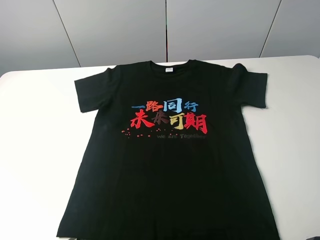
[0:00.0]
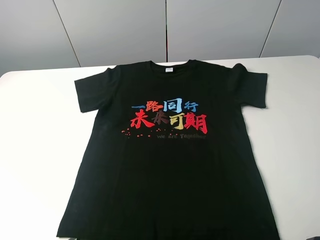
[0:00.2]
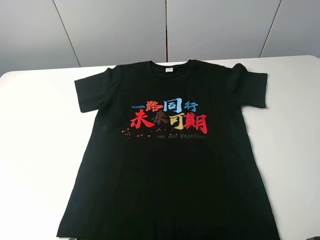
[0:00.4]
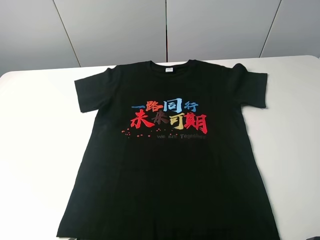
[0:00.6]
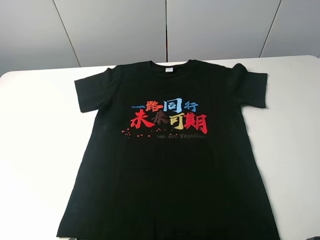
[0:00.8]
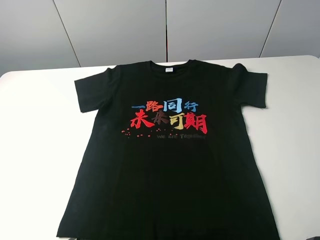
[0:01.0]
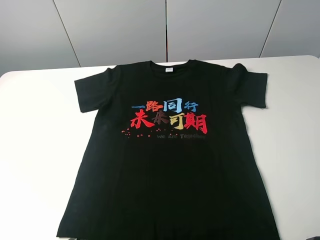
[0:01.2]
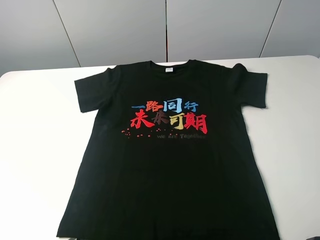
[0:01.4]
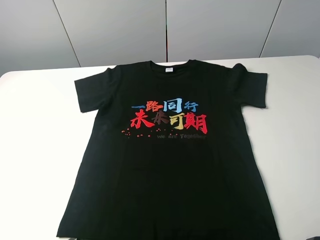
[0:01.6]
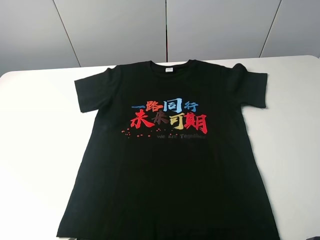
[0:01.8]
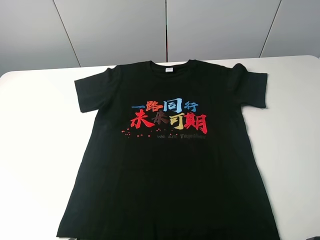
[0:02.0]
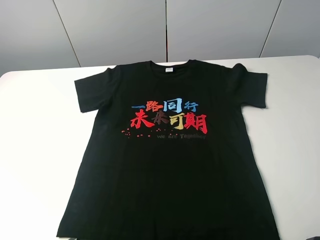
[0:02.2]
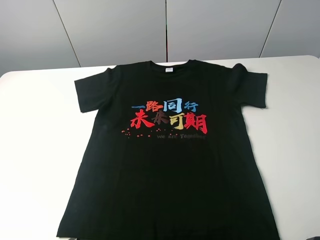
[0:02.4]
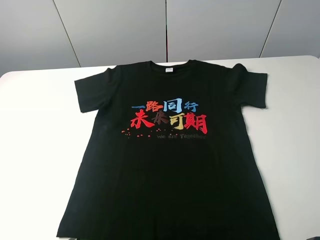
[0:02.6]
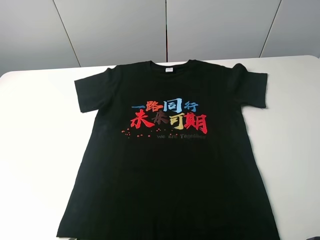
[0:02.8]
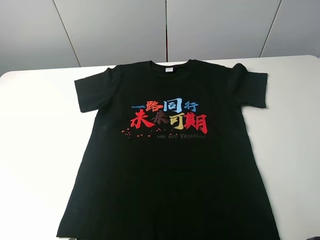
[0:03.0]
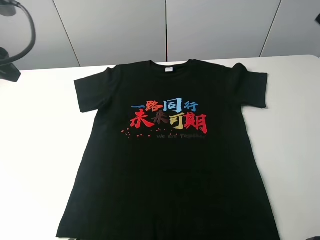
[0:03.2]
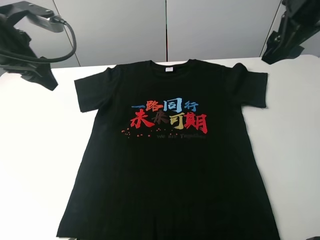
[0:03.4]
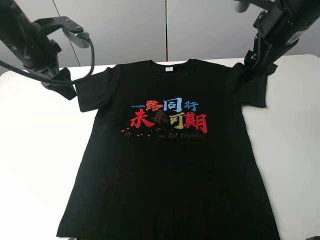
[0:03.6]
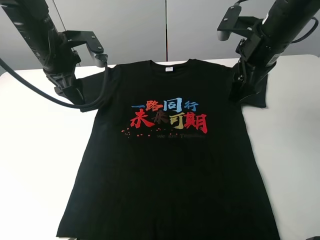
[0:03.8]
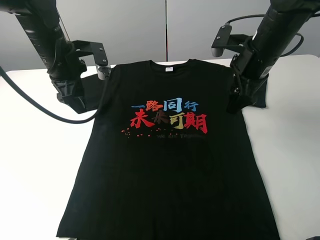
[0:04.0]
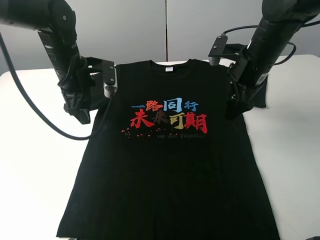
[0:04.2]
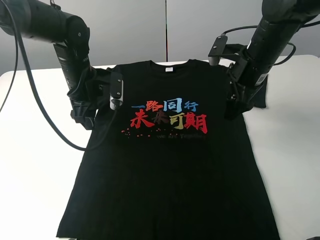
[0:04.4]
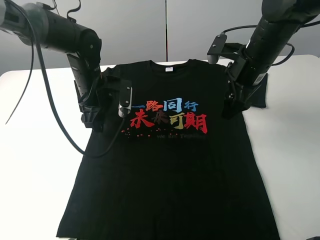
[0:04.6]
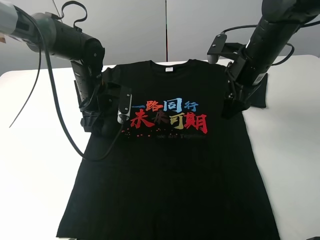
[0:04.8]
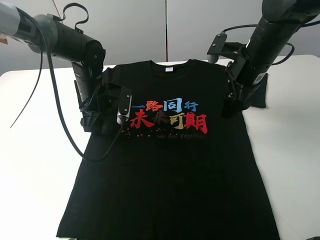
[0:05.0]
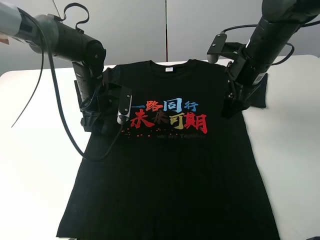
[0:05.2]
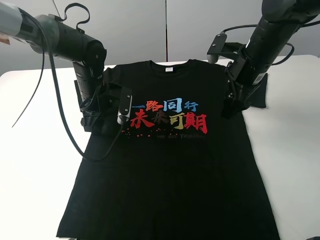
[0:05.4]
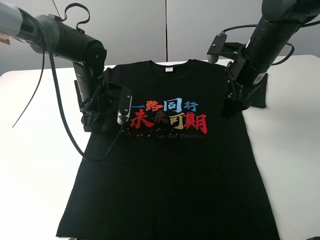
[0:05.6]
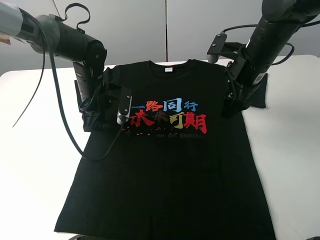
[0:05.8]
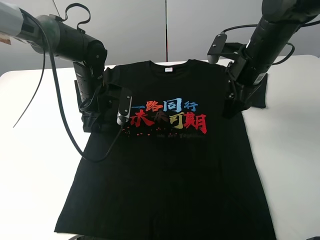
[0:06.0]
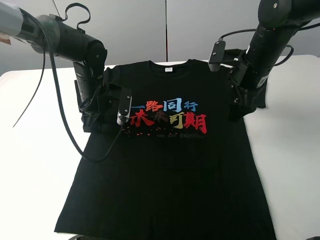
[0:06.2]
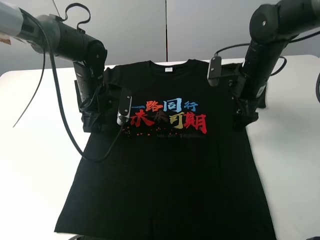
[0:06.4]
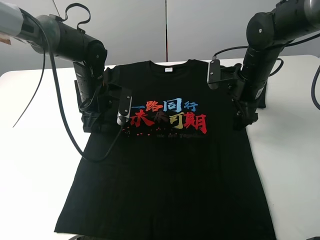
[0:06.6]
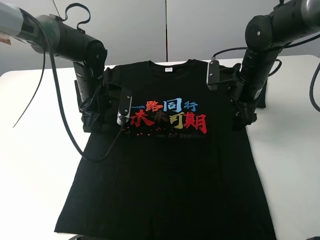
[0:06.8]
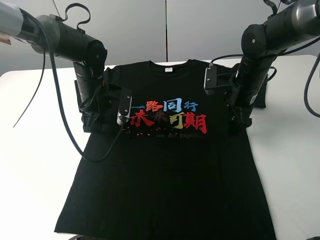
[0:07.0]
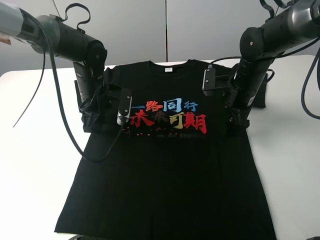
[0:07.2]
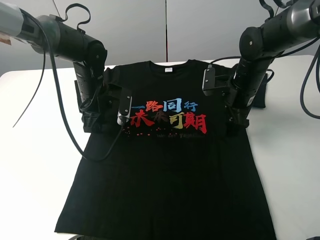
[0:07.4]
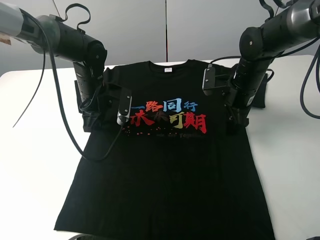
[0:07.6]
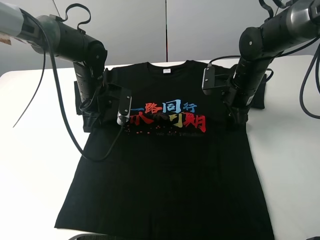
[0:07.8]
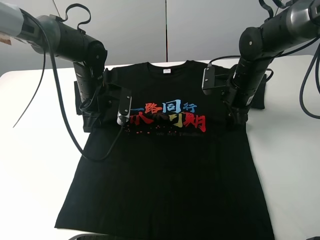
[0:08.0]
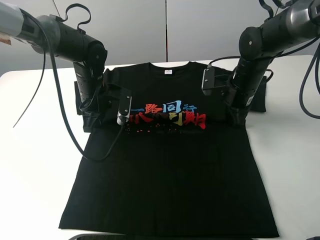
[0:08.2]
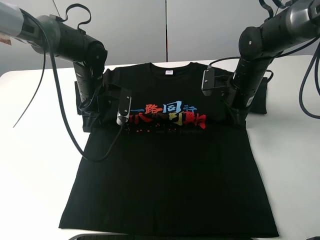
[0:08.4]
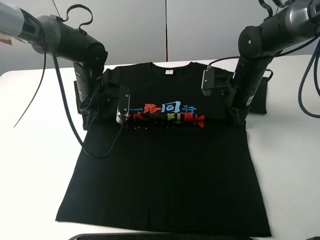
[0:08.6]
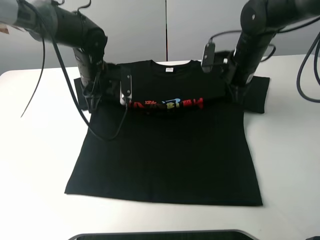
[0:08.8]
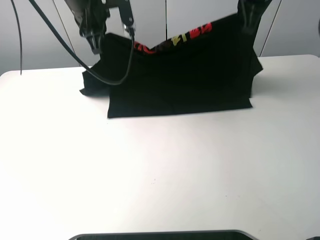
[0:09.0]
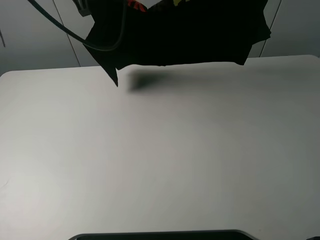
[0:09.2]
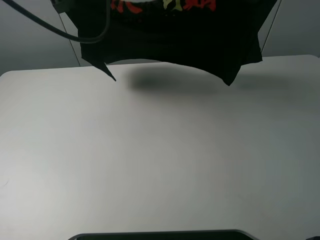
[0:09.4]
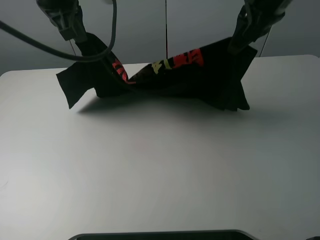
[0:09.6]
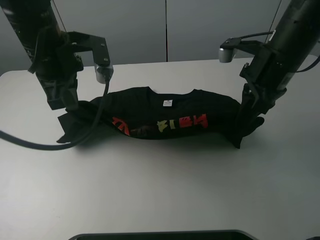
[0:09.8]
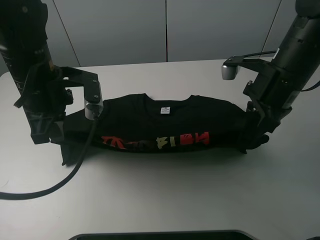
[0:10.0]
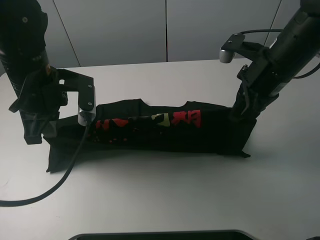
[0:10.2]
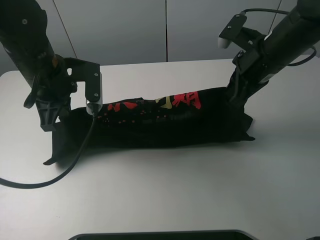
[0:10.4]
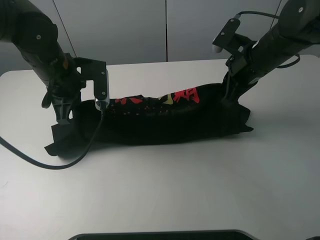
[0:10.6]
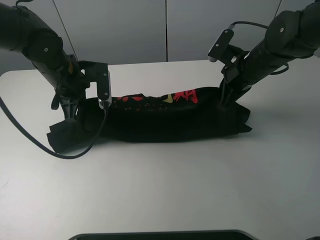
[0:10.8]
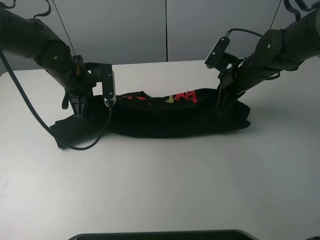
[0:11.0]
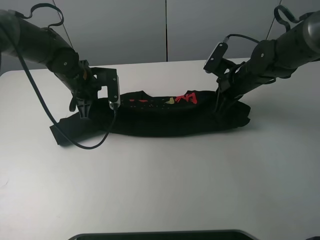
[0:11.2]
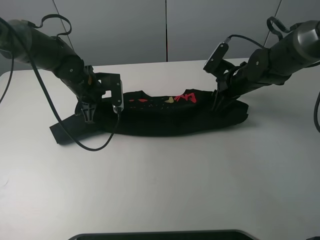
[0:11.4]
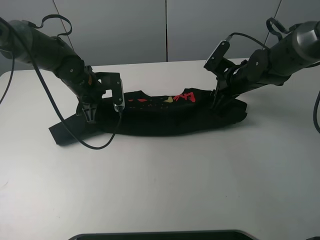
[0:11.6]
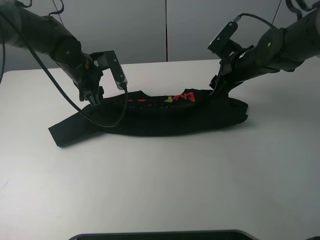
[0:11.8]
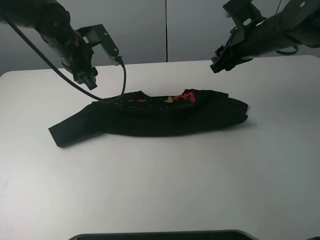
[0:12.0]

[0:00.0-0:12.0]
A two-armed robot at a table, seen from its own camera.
Task of the whole recording: fold the clothes on the table.
Step, 0:00.0 to 0:07.8: Lift the black T-shirt with the left gripper.
Step, 0:08.2 to 0:11.8: Fold the black T-shirt downward with the left gripper.
0:00.0 to 0:01.6: Neither gripper changes place.
0:03.0 to 0:04.4: The left gripper is displaced downward, to the right and forward by approximately 25 cm. Meanwhile the right gripper is displaced downward, to the left and forward by some 25 cm.
0:04.4 to 0:06.0: There are only small adjustments of the grippers.
0:06.0 to 0:07.6: The right gripper is displaced downward by approximately 10 cm; the left gripper closes its fingers.
0:07.6 to 0:09.0: Both grippers travel together upward, approximately 20 cm. The right gripper closes up.
0:09.0 to 0:10.4: The left gripper moves backward, downward and to the left, about 15 cm. The right gripper goes approximately 15 cm downward and backward.
0:10.4 to 0:12.0: The left gripper goes roughly 10 cm forward, moves approximately 10 cm downward and comes back, and opens up. Meanwhile the right gripper goes downward and returns, some 10 cm each way, and opens.

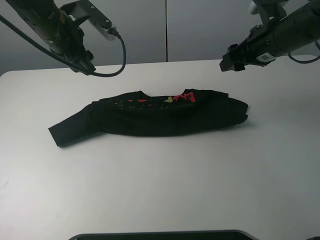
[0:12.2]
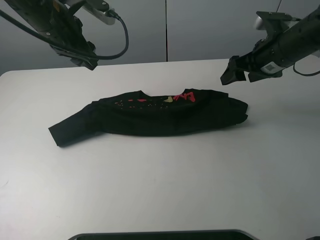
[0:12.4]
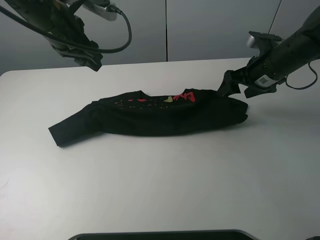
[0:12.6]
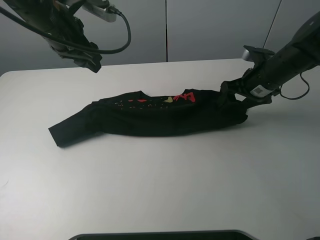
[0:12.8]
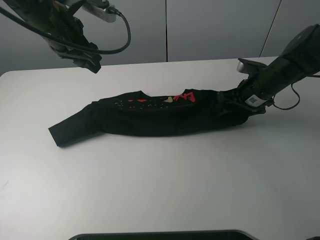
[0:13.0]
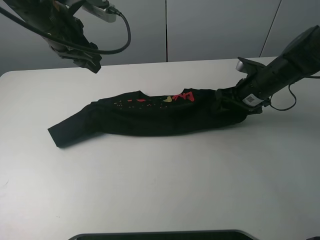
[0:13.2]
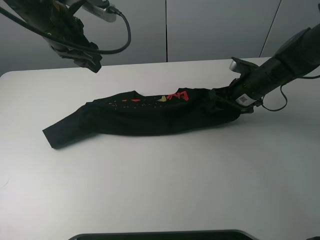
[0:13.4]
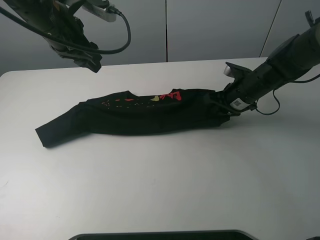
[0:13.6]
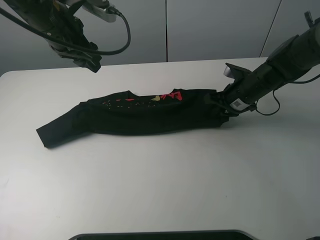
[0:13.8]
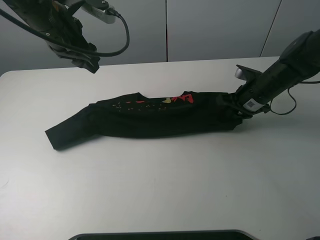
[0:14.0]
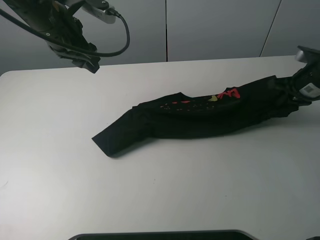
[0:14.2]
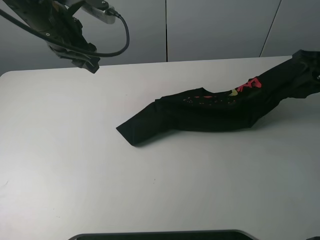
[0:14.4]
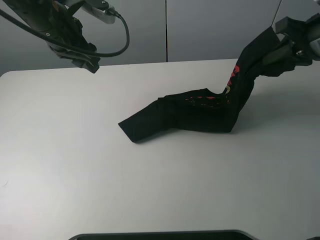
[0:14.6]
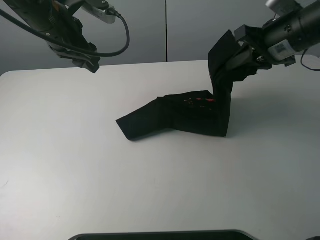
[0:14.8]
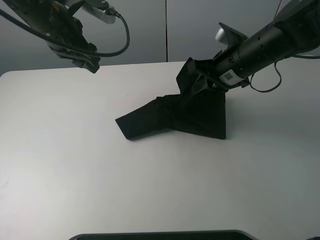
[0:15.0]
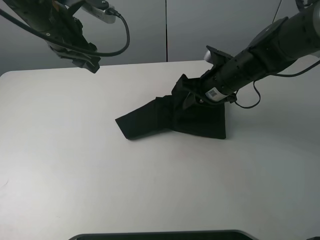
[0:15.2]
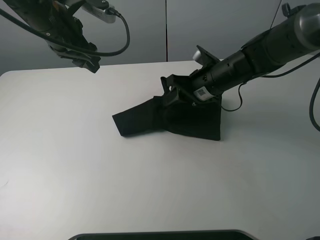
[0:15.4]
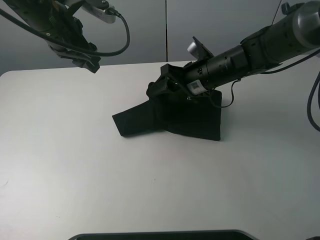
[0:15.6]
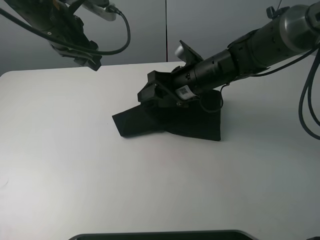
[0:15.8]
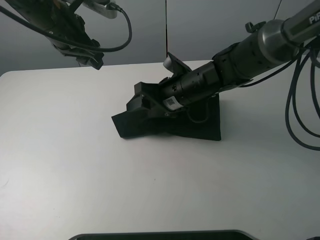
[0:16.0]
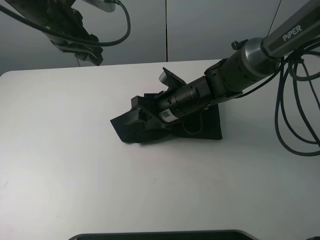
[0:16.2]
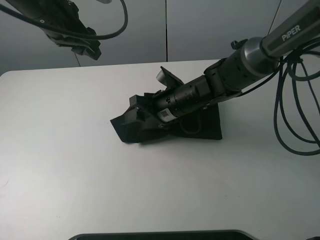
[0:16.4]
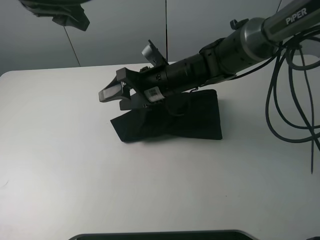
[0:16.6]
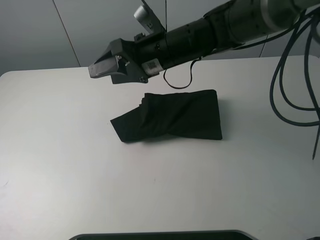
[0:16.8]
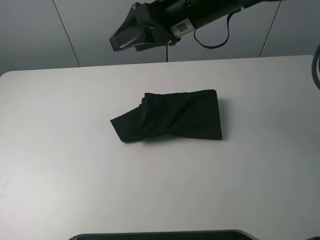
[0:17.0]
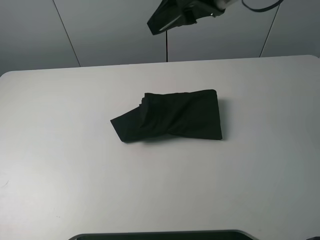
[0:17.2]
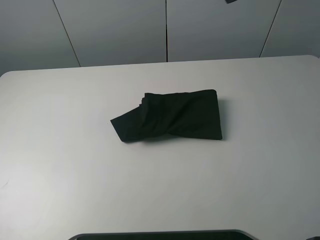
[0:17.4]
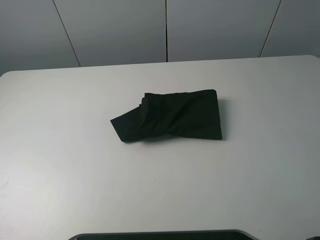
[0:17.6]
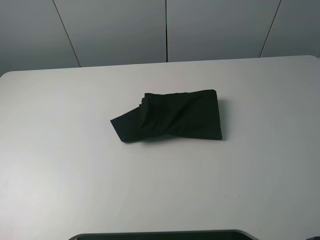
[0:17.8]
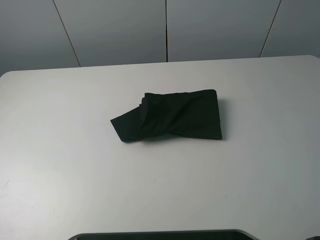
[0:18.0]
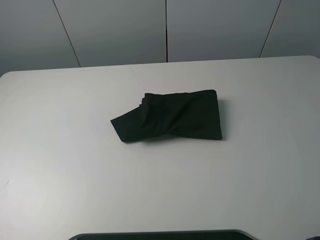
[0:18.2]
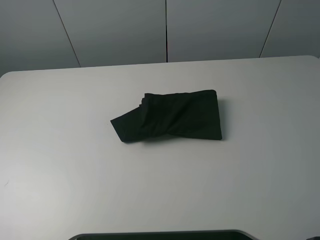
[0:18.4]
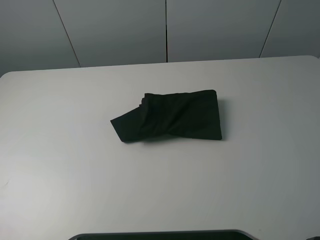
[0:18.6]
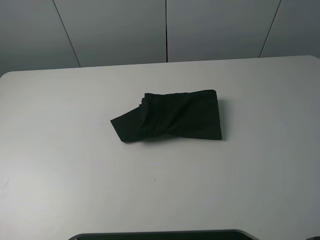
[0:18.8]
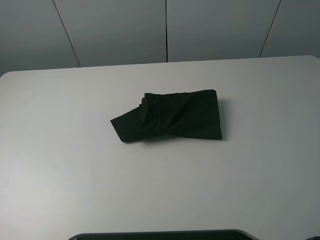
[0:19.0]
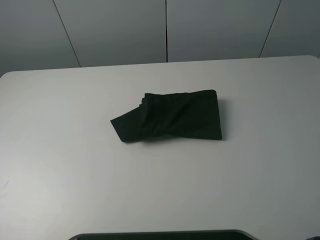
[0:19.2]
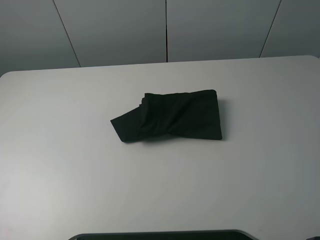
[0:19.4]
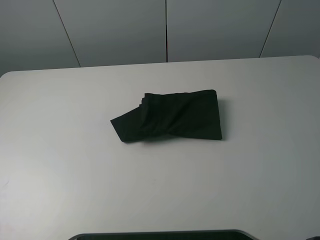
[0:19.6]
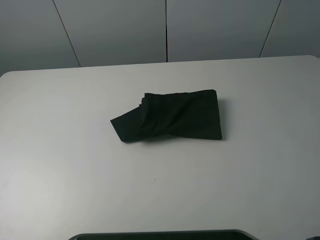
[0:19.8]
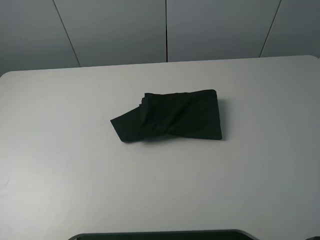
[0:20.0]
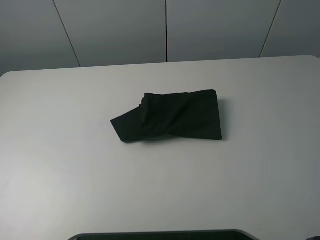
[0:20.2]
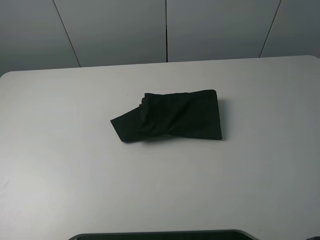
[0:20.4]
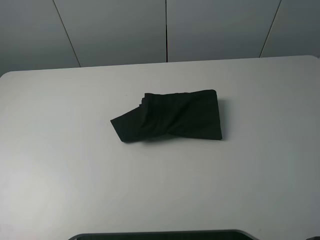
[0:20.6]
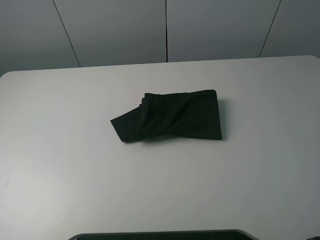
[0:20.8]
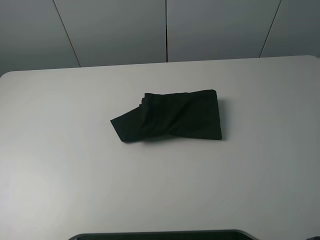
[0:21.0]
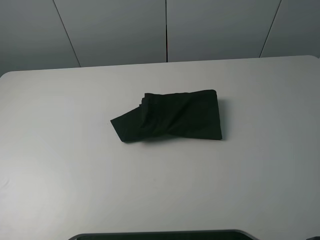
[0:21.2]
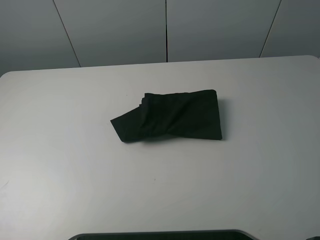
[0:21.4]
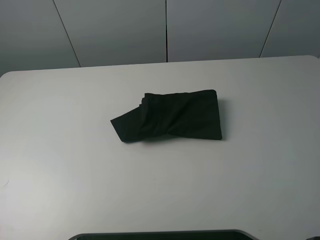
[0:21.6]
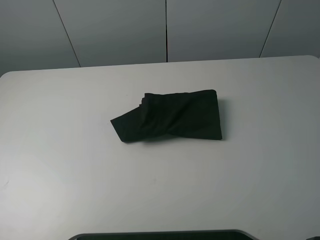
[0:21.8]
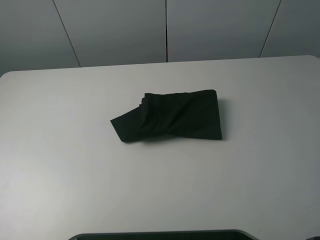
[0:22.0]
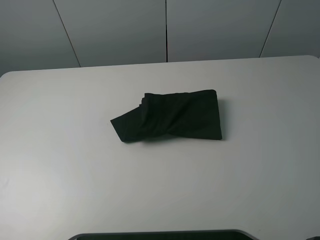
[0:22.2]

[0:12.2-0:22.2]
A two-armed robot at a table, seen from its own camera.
Task of the whole recording: fold the clothes on the table.
Step, 0:12.2 to 0:13.6: Grasp the black T-shirt with the right gripper.
Step, 0:13.8 to 0:16.6: Fold the black T-shirt from right to left with right gripper.
0:12.2 to 0:13.6: The right gripper goes approximately 15 cm downward, and closes.
0:13.6 to 0:15.0: The right gripper goes about 10 cm upward, and reaches about 15 cm to the right, then returns.
0:15.0 to 0:16.4: The right gripper shifts roughly 15 cm to the left and downward, and opens.
0:16.4 to 0:18.0: The right gripper travels upward, to the right and backward by some 50 cm, while the left gripper shifts some 50 cm backward and to the left.
0:20.8 to 0:22.2: Both grippers stay put.
